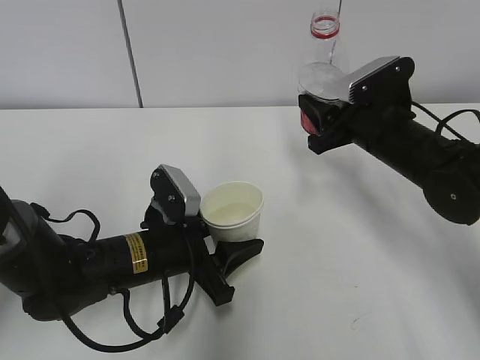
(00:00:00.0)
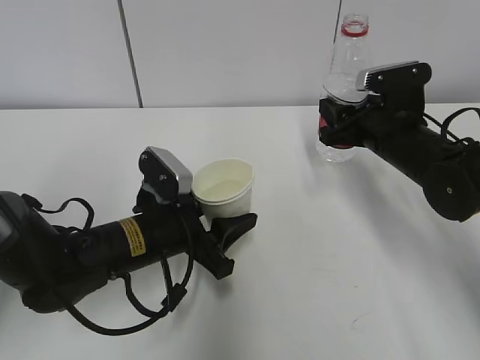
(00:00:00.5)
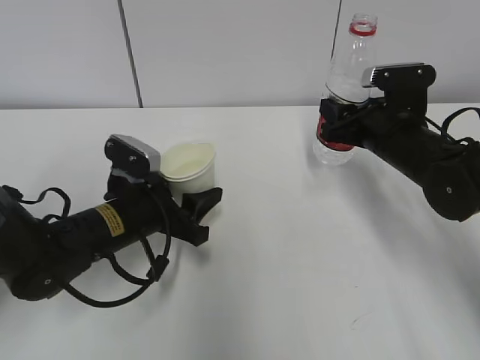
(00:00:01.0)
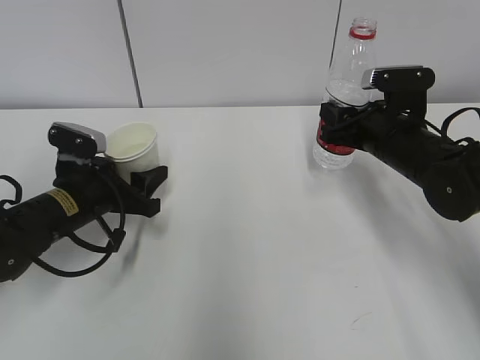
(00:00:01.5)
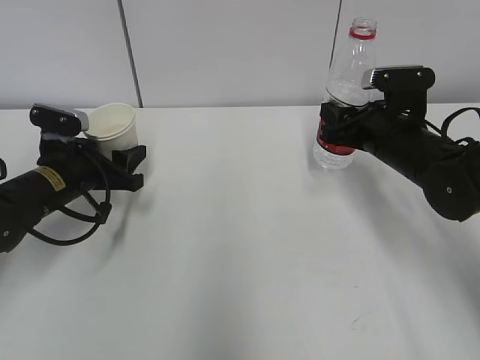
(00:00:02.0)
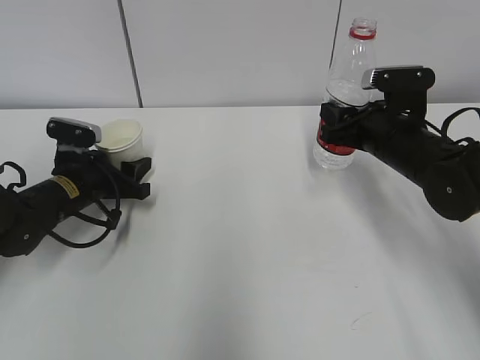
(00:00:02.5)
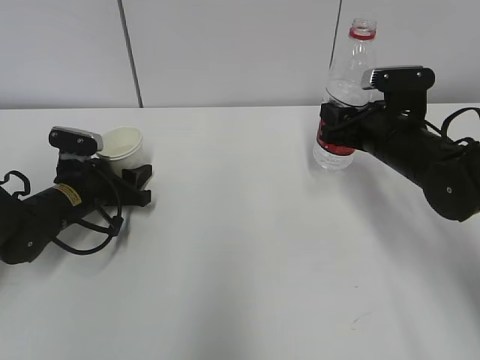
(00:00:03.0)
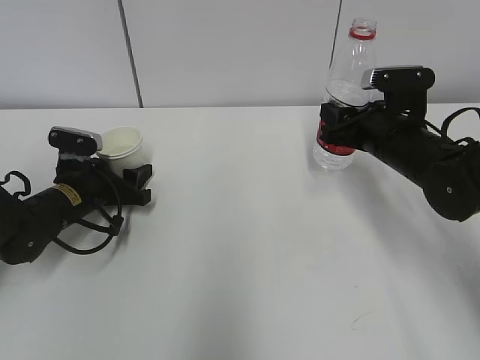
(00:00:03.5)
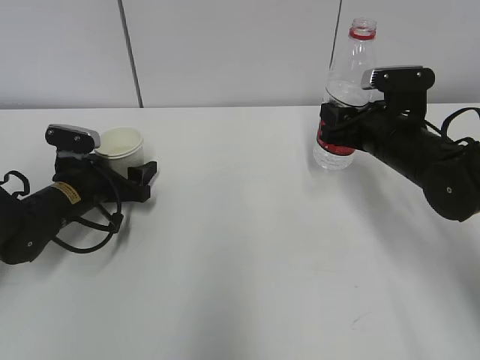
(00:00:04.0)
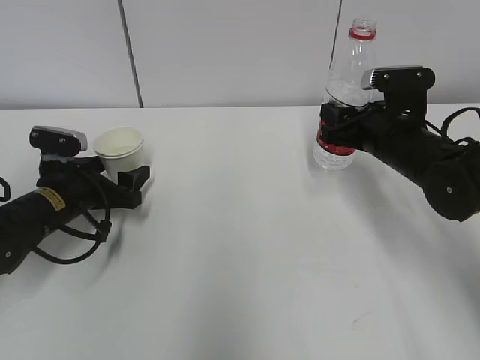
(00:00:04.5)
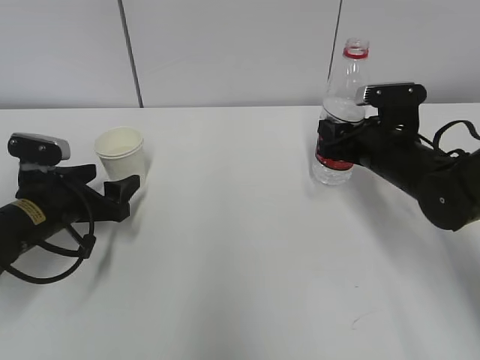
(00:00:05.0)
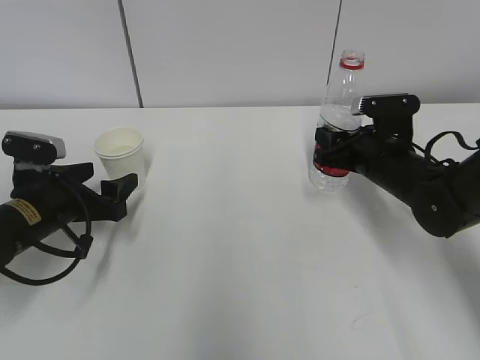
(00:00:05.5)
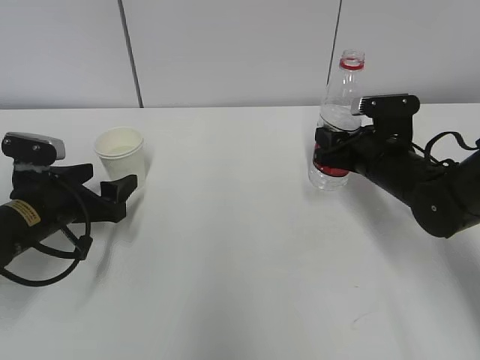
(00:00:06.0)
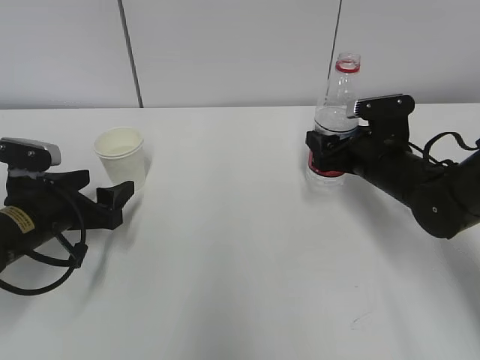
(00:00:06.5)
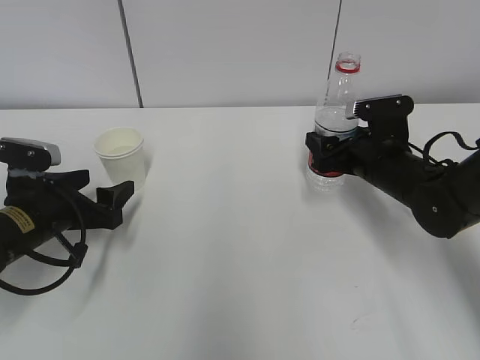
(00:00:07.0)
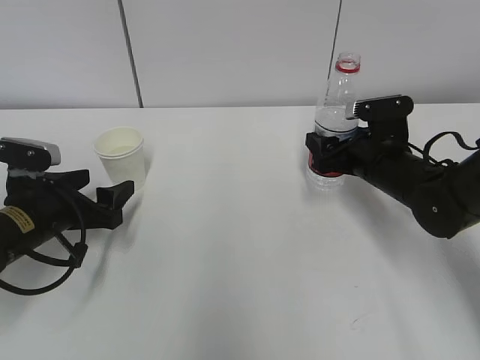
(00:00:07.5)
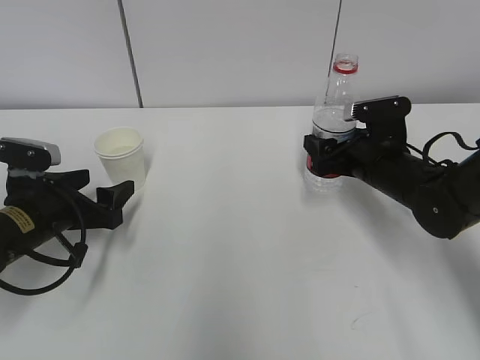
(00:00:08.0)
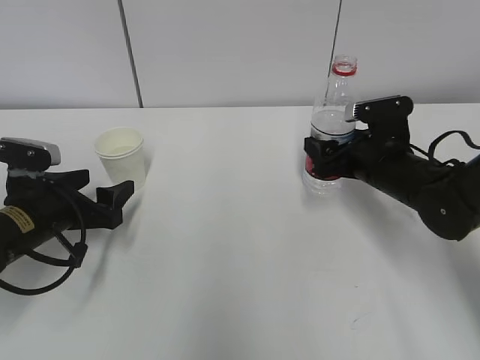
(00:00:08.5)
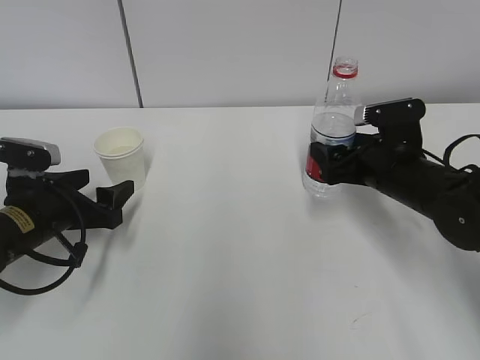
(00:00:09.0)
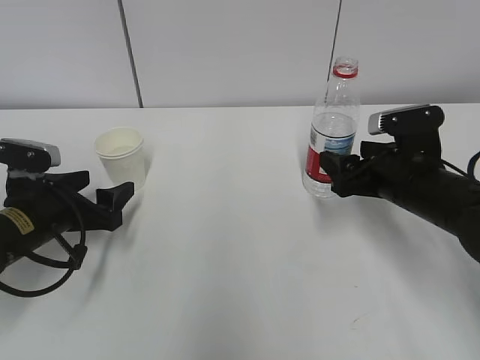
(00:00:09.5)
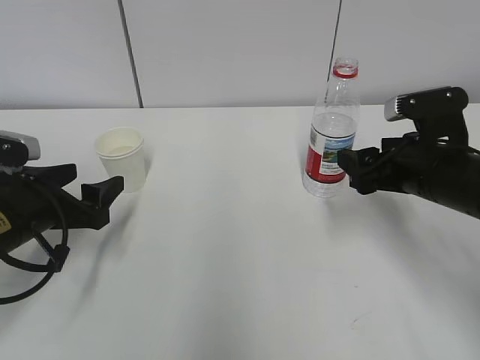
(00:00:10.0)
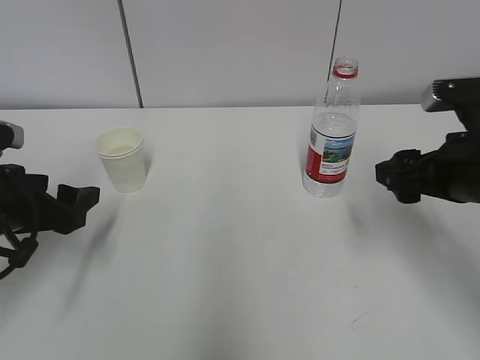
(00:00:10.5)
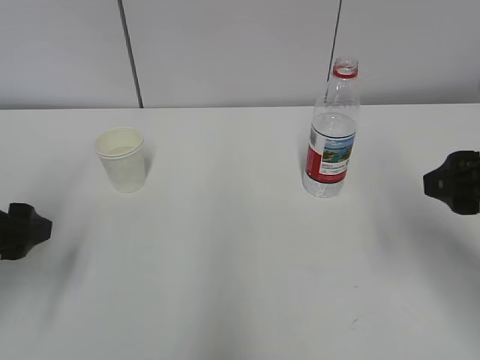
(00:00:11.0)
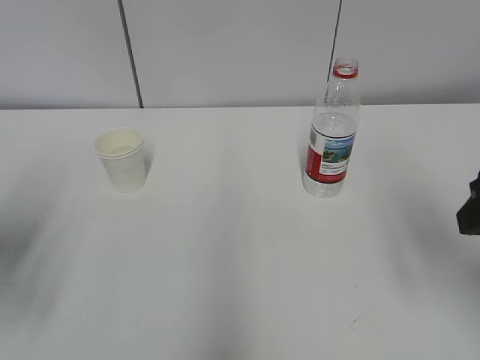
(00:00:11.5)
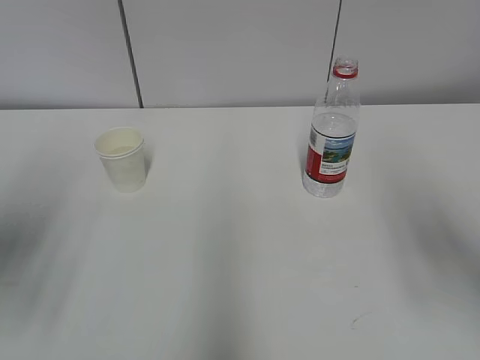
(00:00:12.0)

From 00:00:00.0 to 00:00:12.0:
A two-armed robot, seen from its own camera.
From 00:00:00.0 to 00:00:02.0: The left gripper shifts some 15 cm to the left and forward.
From 00:00:02.0 to 00:00:04.0: The left gripper opens its fingers.
From 00:00:04.0 to 00:00:06.0: The left gripper shifts some 5 cm backward.
From 00:00:06.0 to 00:00:08.0: The right gripper opens its fingers.
From 00:00:08.0 to 00:00:10.0: The right gripper travels backward and upward by some 10 cm.
From 00:00:10.0 to 00:00:12.0: The grippers both shift upward and backward by roughly 20 cm. The left gripper closes.

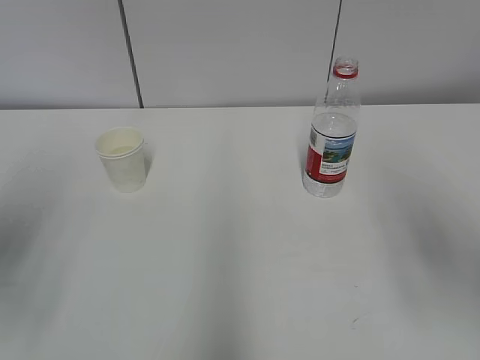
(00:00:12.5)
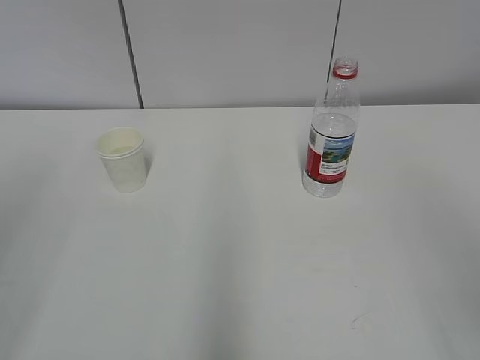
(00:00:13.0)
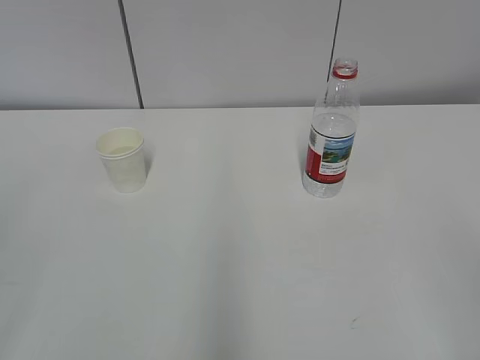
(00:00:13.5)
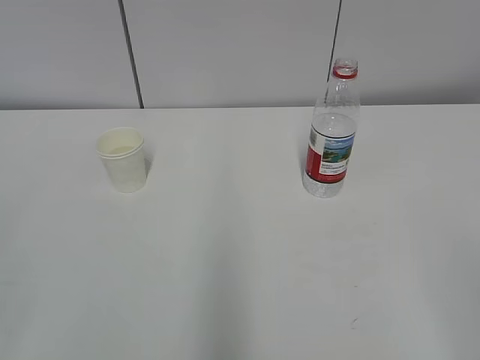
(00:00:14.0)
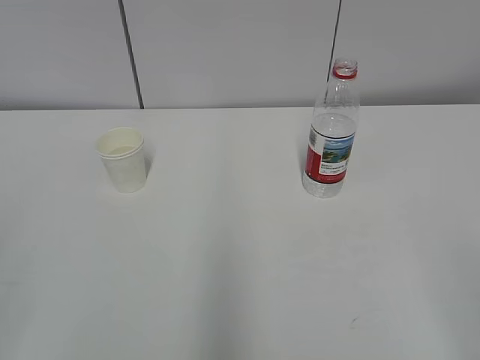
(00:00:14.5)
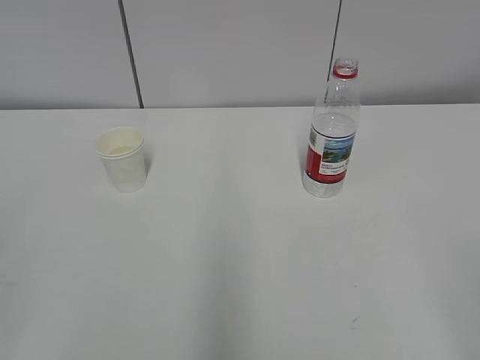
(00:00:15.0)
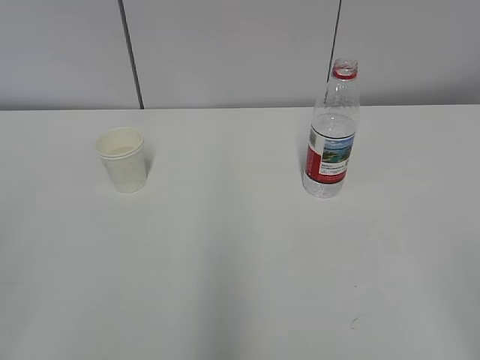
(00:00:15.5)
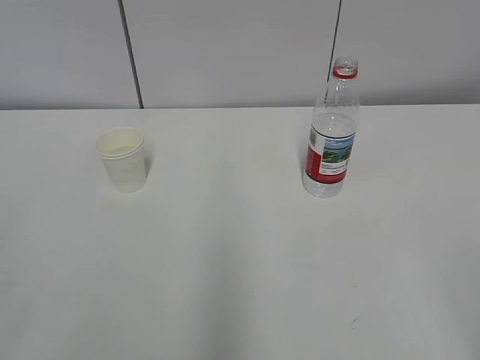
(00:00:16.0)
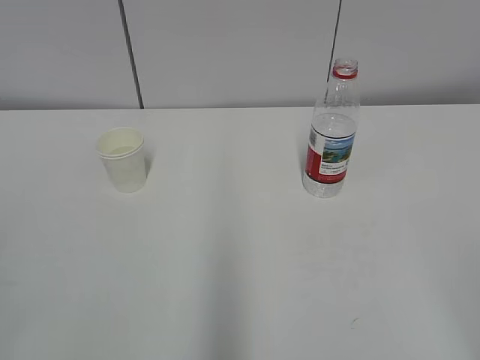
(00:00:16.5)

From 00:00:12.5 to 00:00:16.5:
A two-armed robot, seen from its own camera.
From 00:00:12.5 to 00:00:14.5: The grippers both shift backward by about 20 cm.

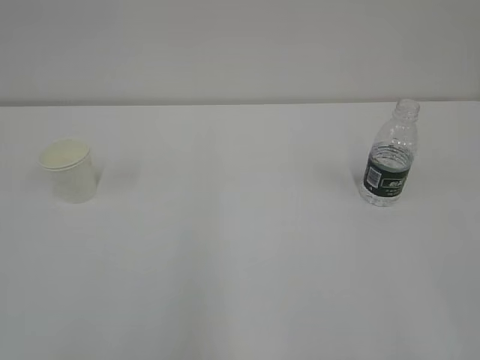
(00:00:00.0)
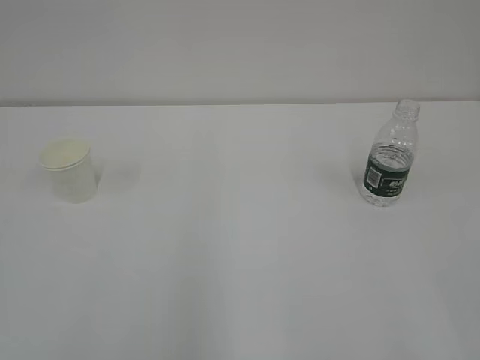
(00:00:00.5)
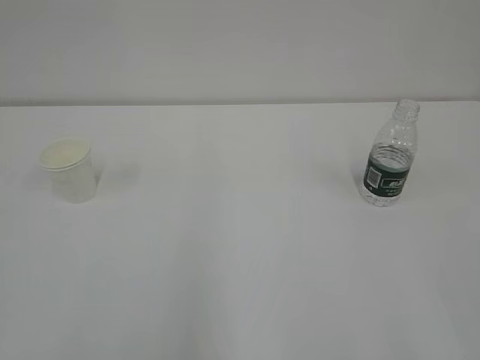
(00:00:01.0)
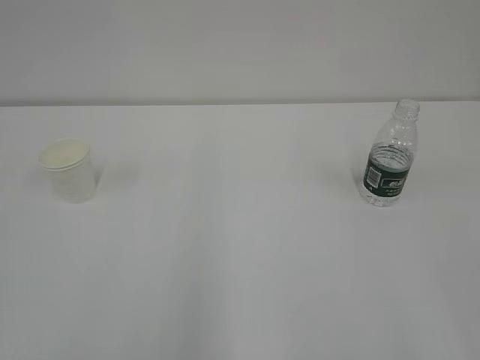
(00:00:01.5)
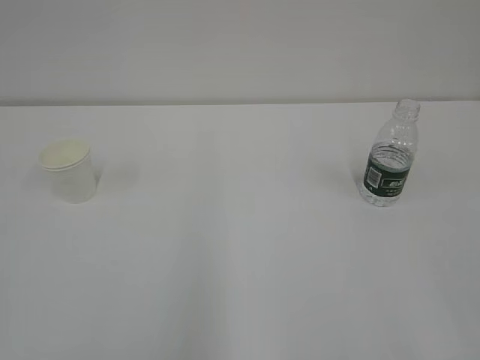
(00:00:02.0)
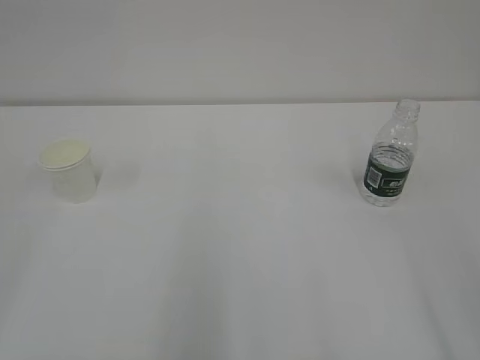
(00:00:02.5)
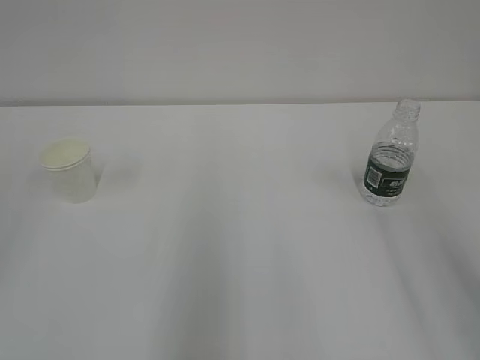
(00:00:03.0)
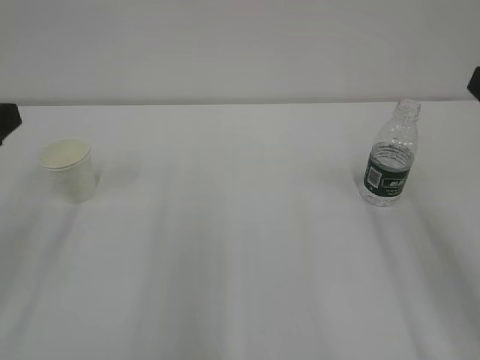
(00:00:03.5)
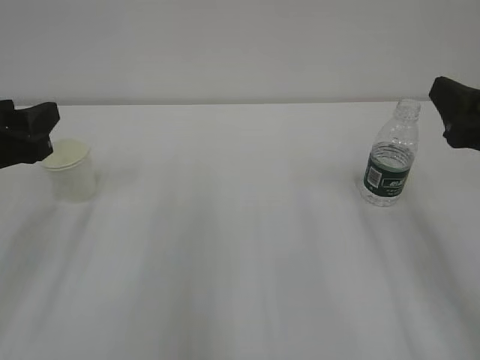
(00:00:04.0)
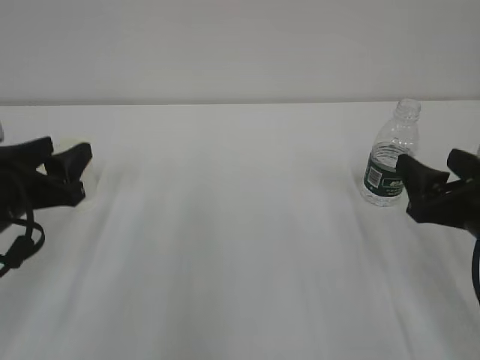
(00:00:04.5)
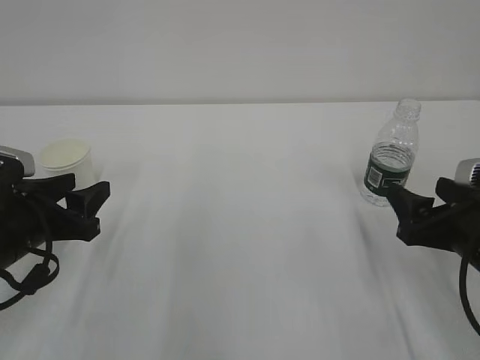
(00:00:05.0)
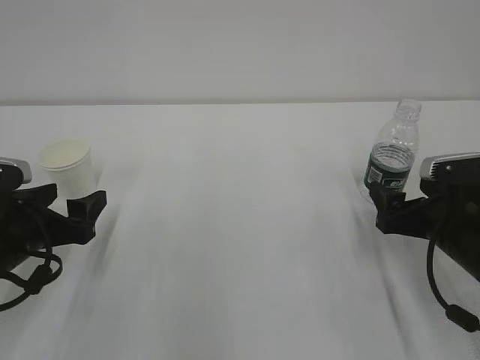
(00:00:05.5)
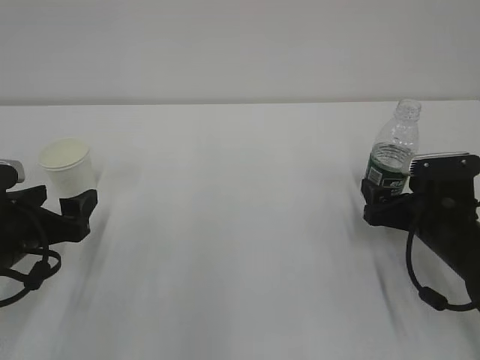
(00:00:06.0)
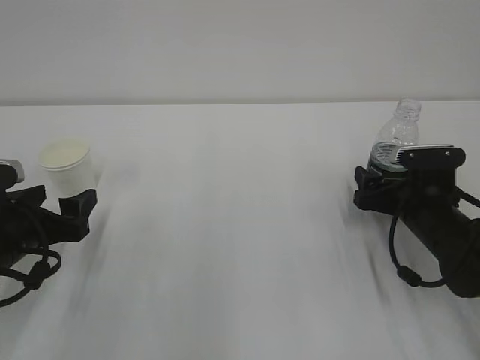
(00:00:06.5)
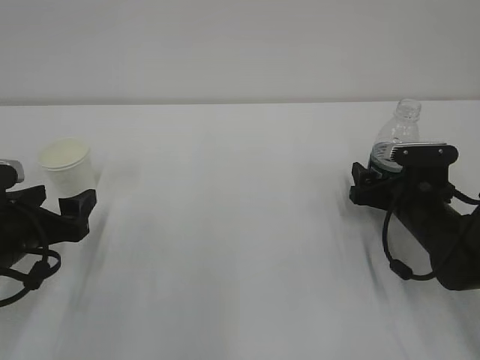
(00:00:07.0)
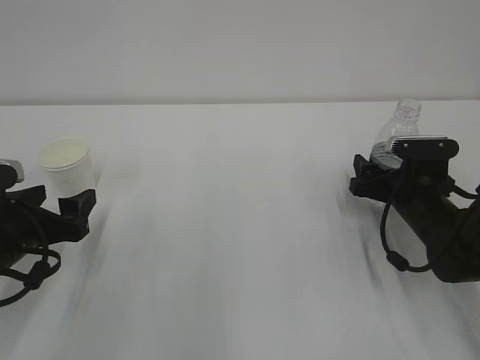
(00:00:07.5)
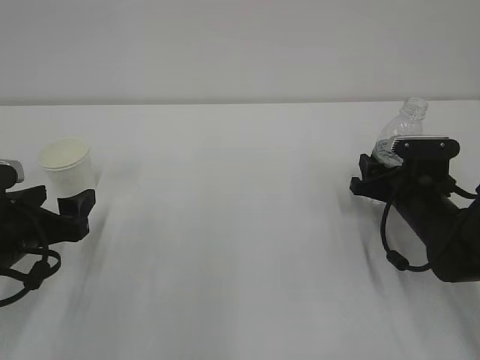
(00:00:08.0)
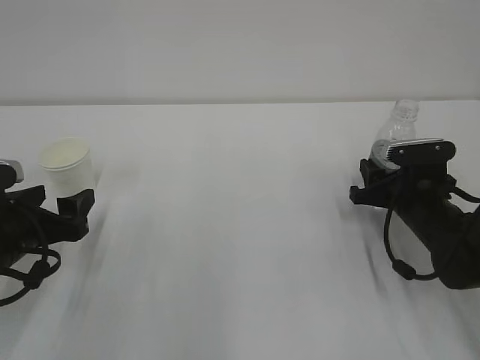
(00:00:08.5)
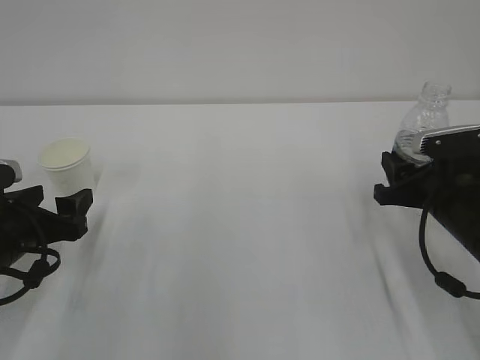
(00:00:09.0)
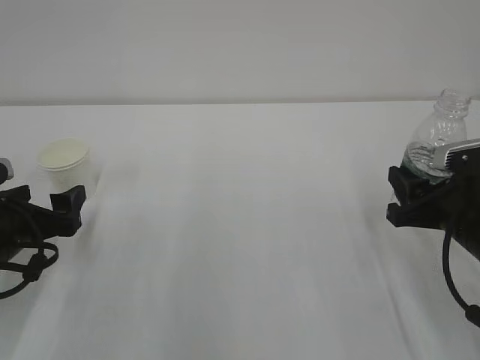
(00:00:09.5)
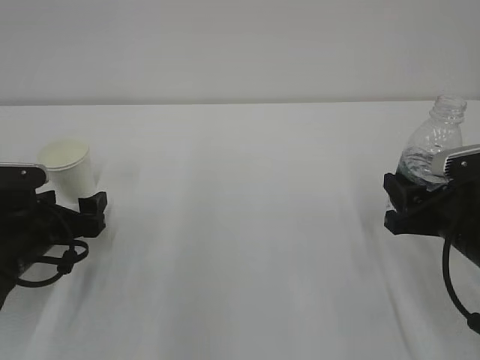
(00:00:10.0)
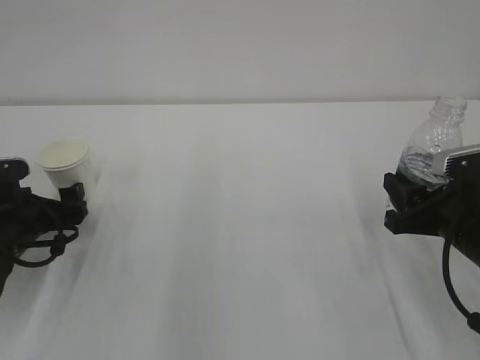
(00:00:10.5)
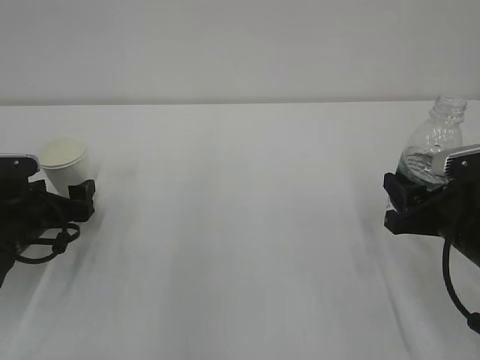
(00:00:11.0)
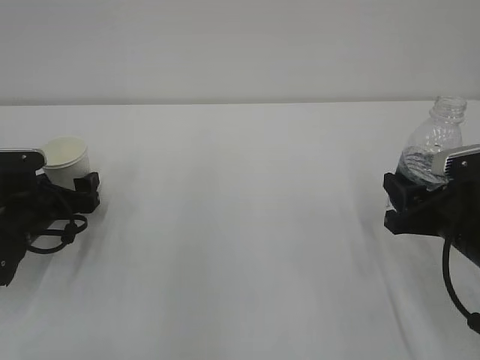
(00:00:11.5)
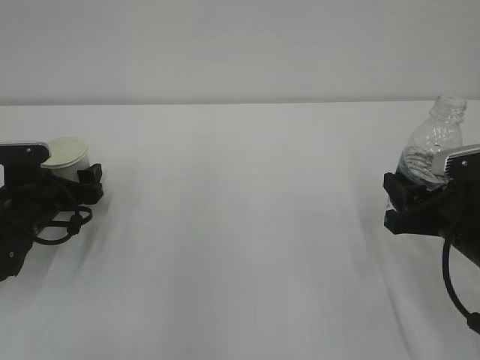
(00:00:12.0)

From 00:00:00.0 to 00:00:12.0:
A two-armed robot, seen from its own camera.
From 00:00:02.0 to 00:00:04.0: Both grippers move forward, approximately 25 cm.
From 00:00:04.0 to 00:00:06.0: The right gripper shifts roughly 20 cm downward and forward. Meanwhile the left gripper goes about 10 cm downward, and opens.
From 00:00:06.0 to 00:00:08.0: The right gripper travels forward by roughly 5 cm, and closes up.
From 00:00:08.0 to 00:00:10.0: The right gripper moves backward and upward, approximately 10 cm.
From 00:00:10.0 to 00:00:12.0: The left gripper travels forward by some 5 cm.
